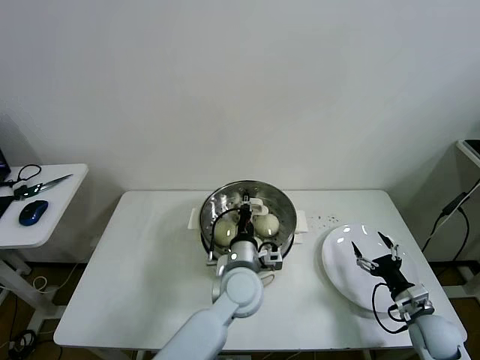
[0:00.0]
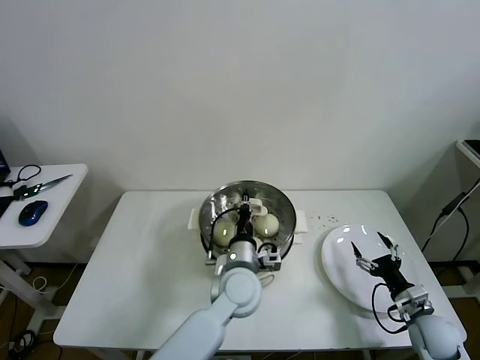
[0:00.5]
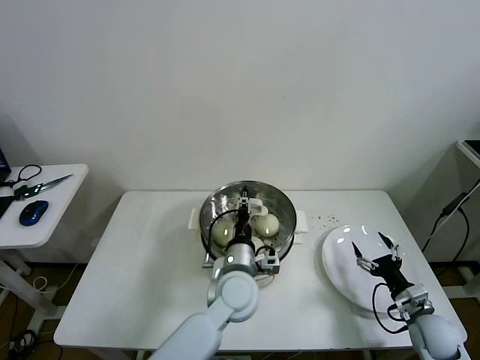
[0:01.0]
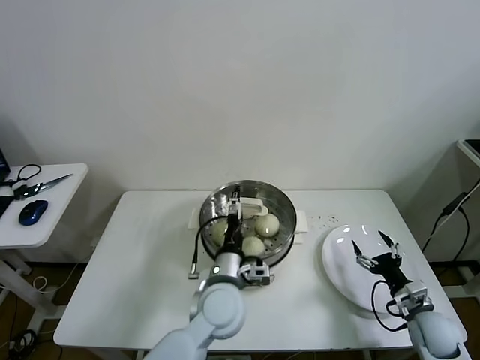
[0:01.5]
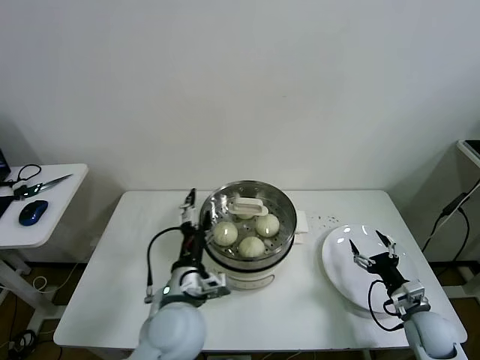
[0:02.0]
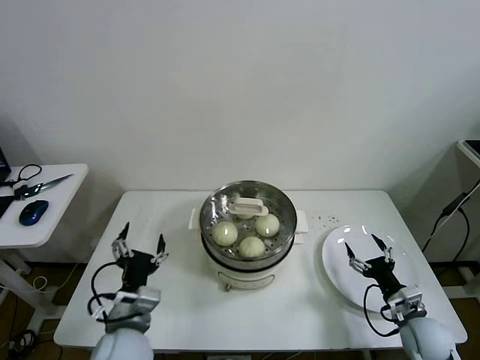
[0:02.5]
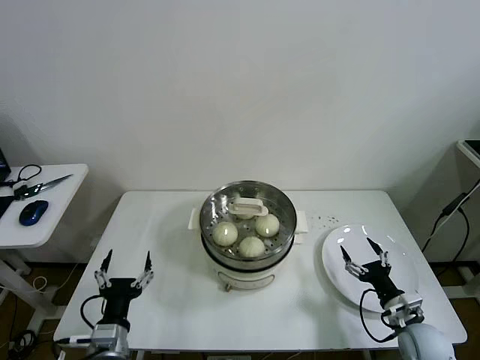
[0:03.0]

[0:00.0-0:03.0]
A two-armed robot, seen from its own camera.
Task of the whole recording: take steamed baozi put them in steamer then cover it.
0:00.0 to 0:01.5: The left gripper opens its fingers.
0:01.5 to 0:03.0: The left gripper is displaced to the left and backward by about 25 cm.

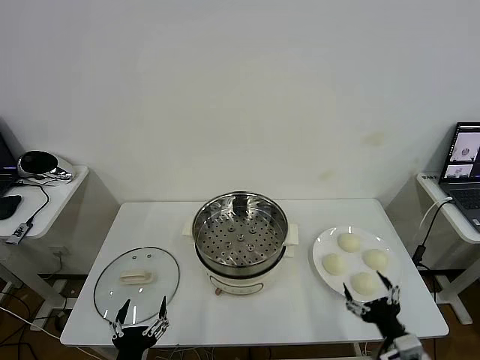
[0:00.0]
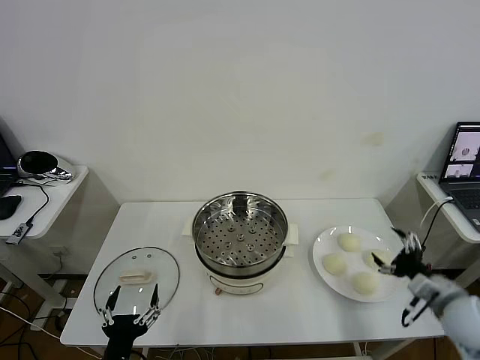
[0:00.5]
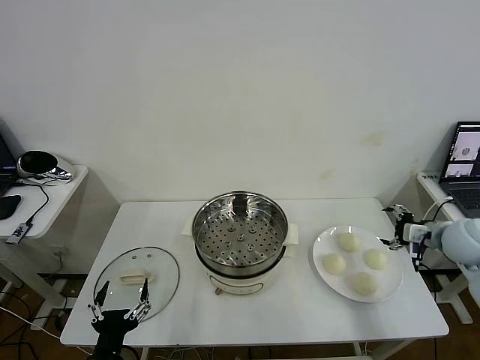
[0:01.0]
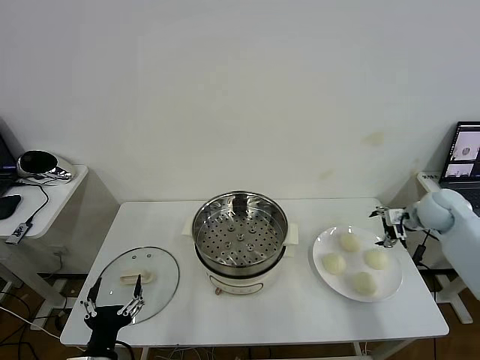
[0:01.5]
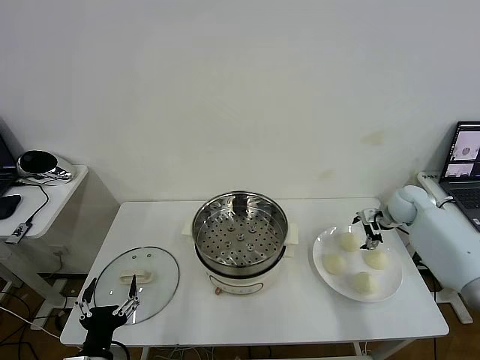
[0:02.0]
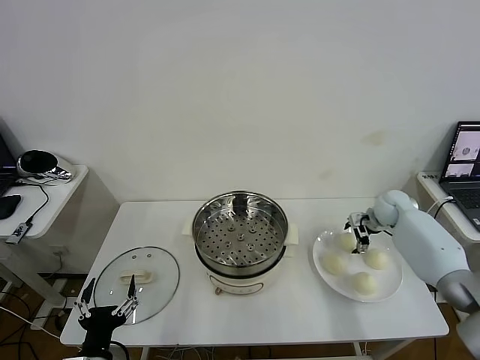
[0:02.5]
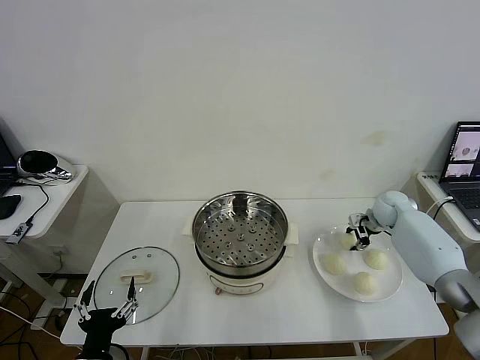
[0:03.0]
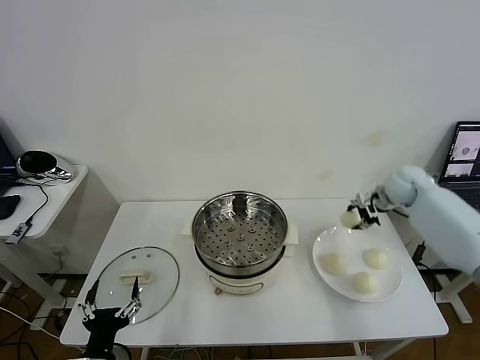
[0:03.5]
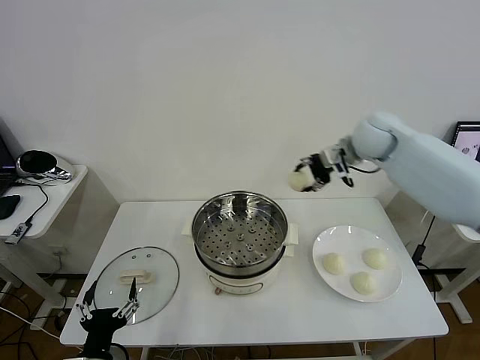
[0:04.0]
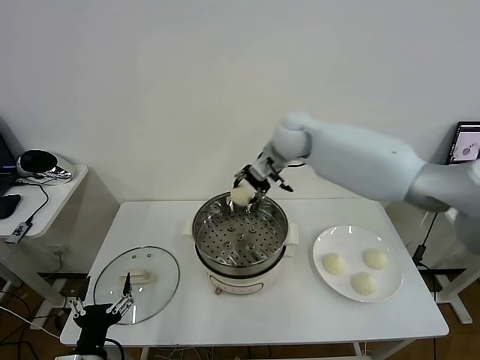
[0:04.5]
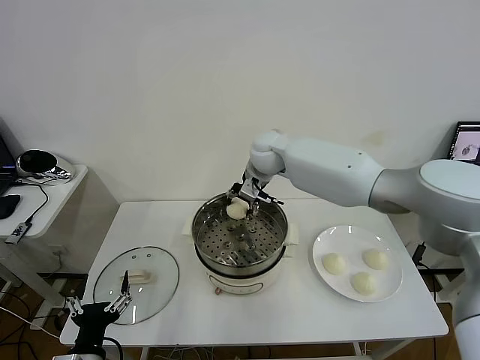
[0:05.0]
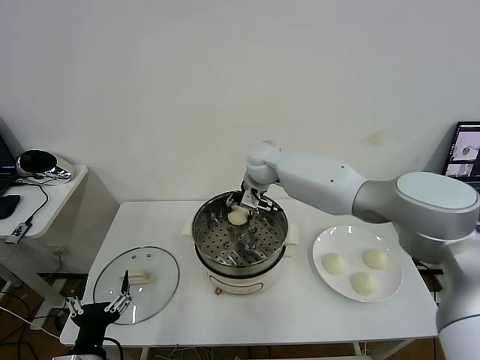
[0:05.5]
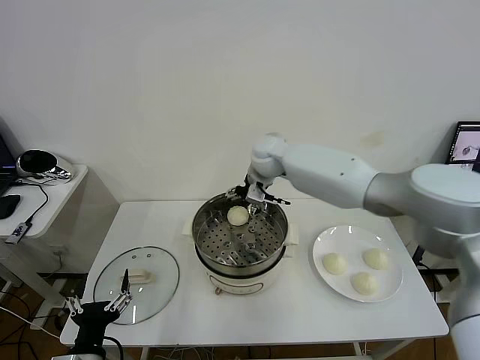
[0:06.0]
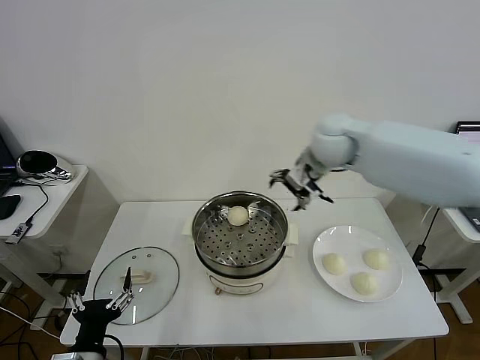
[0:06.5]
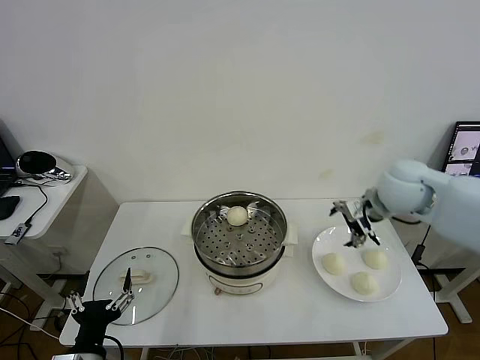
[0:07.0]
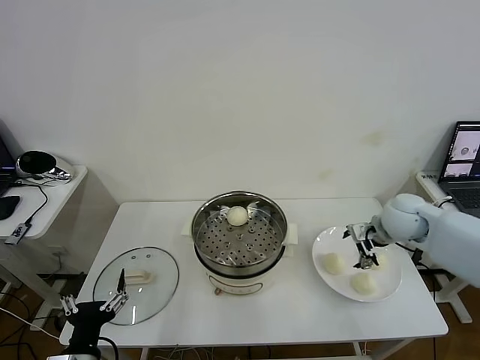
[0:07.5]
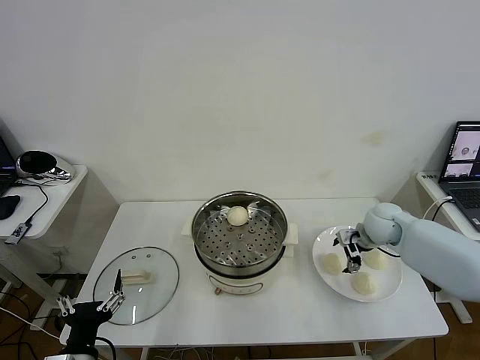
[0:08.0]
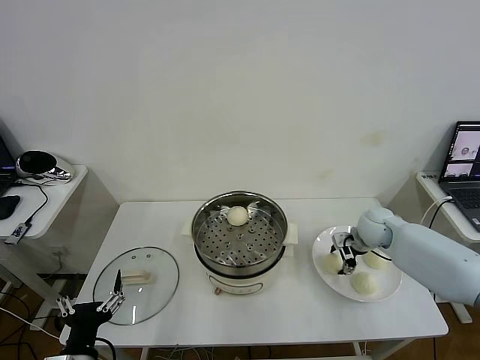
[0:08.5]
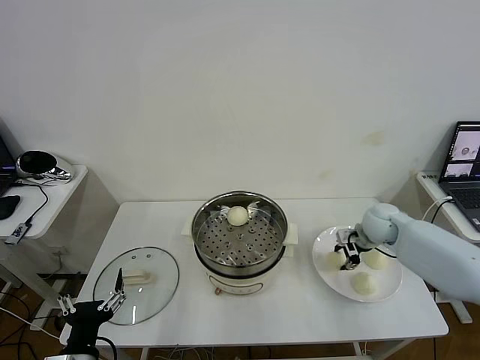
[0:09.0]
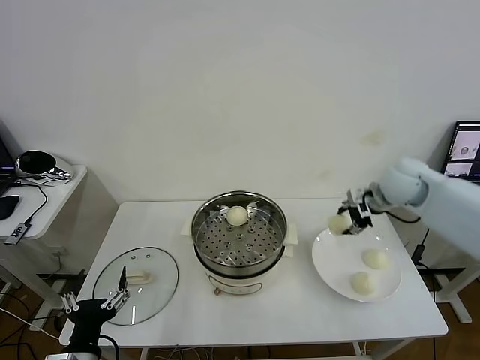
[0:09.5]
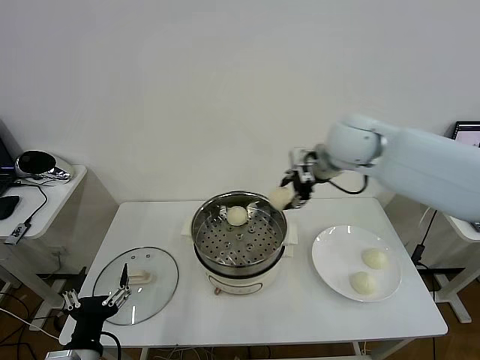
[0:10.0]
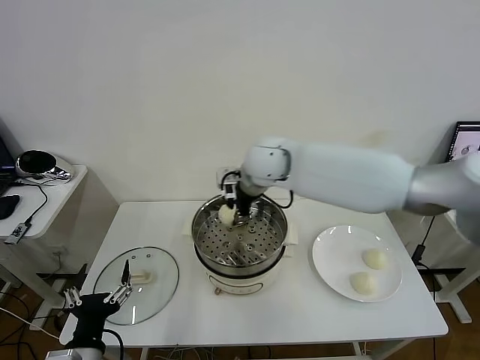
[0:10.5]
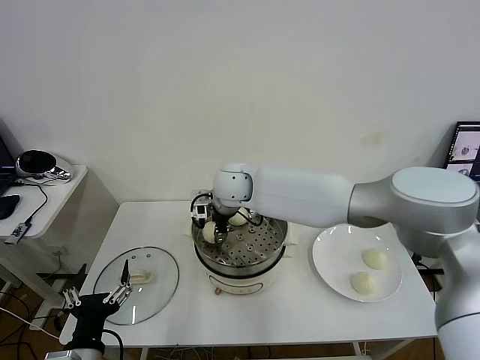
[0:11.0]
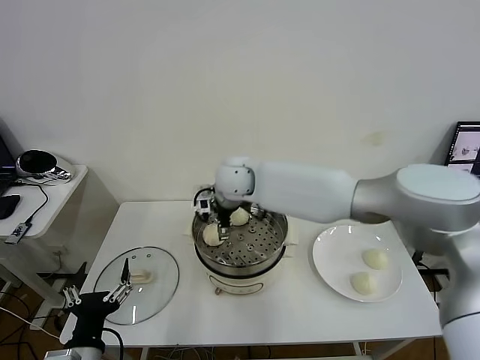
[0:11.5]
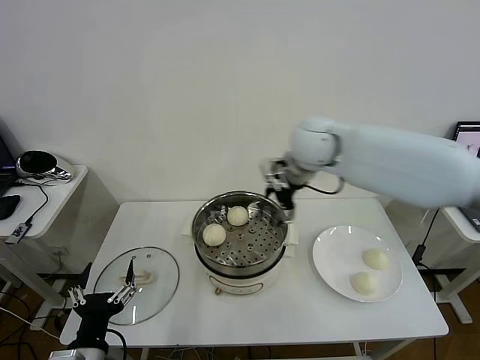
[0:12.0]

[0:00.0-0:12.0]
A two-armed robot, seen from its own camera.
Task of the whole recording: take steamed baozi put them in steamer then cover it.
Step, 0:00.0 to 0:03.0: Grasp the baozi in the plate with right gripper.
Step, 0:03.5 to 0:05.5: Place the baozi on the steamer with right gripper.
Step, 0:06.0 to 0:08.5: Grasp the baozi in the plate with right gripper.
Step, 0:09.0 to 0:11.0: Place the baozi on the steamer with right gripper.
0:02.0 to 0:04.0: The right gripper goes some 25 cm upward and to the left, and closes up.
0:04.0 to 0:06.0: The right gripper heads to the left, covering roughly 20 cm, and opens its fingers.
0:06.0 to 0:08.0: The right gripper shifts approximately 30 cm to the right and downward.
0:08.0 to 0:10.0: The right gripper goes about 30 cm upward and to the left, and closes its fingers.
0:10.0 to 0:12.0: The right gripper goes to the left and returns, about 20 cm each way, and opens.

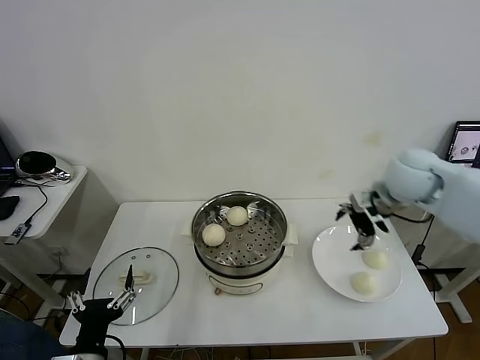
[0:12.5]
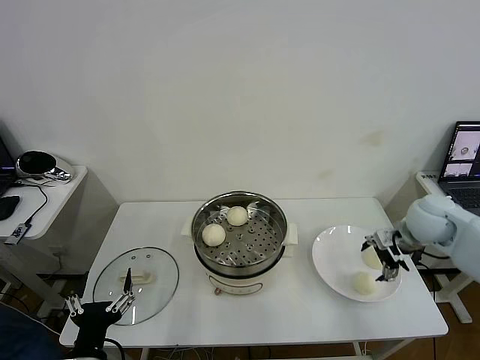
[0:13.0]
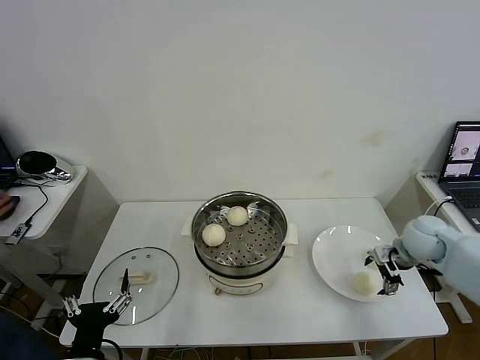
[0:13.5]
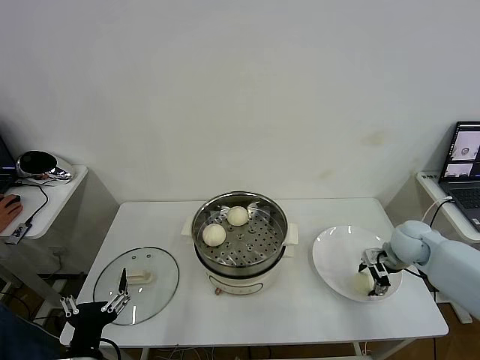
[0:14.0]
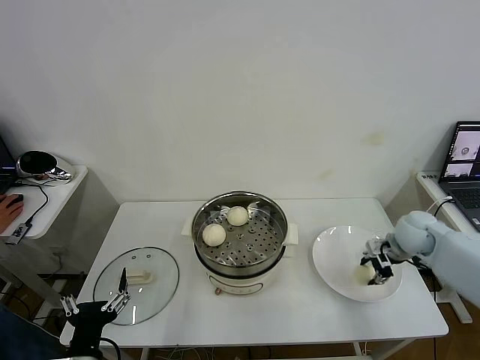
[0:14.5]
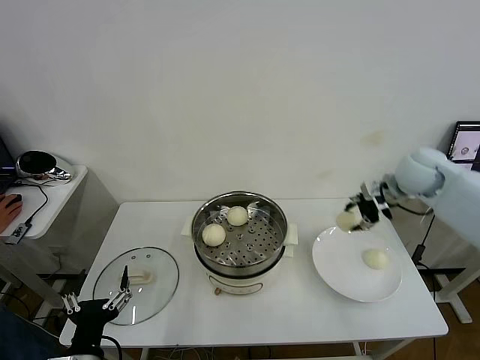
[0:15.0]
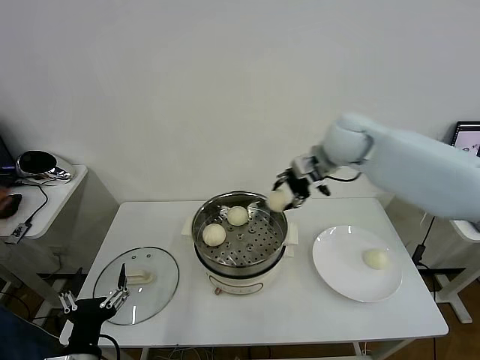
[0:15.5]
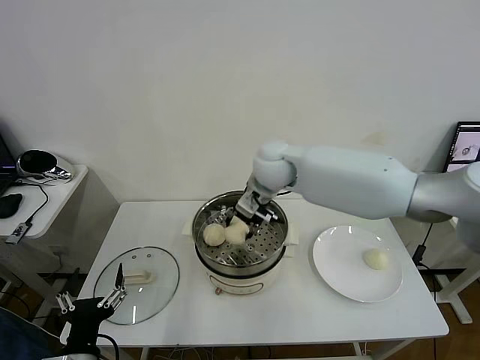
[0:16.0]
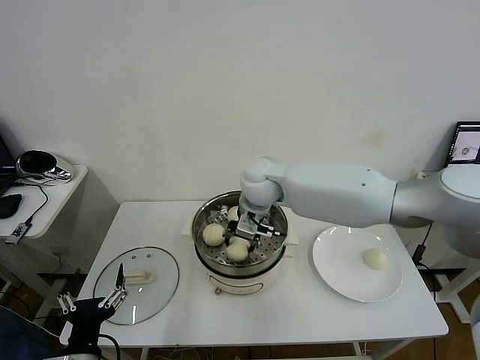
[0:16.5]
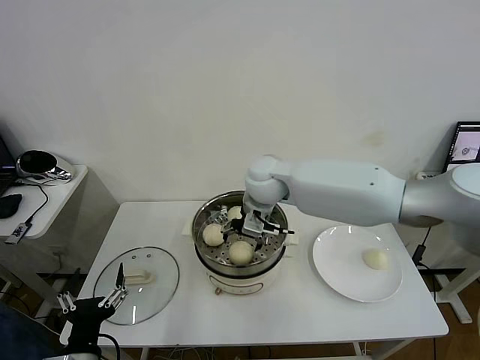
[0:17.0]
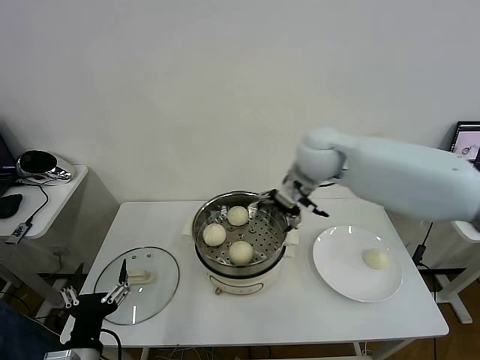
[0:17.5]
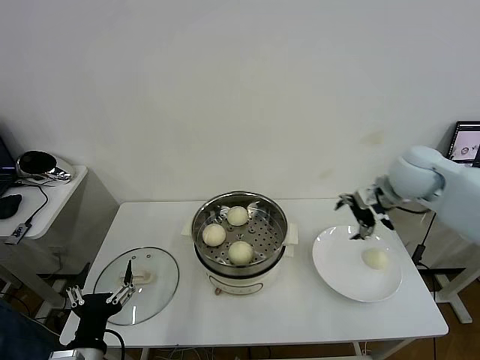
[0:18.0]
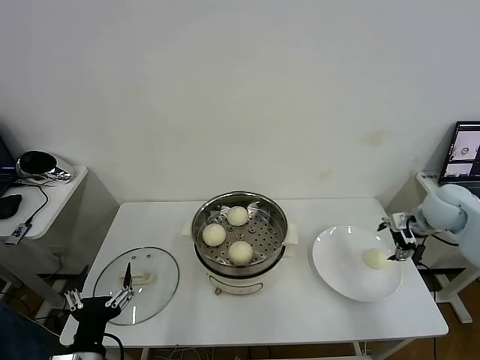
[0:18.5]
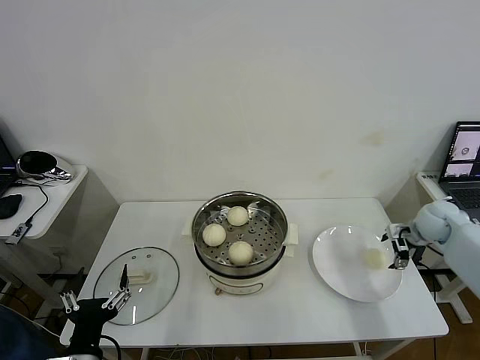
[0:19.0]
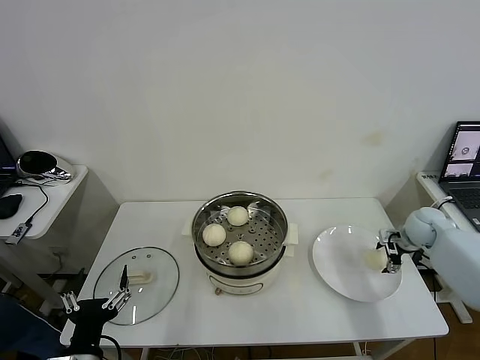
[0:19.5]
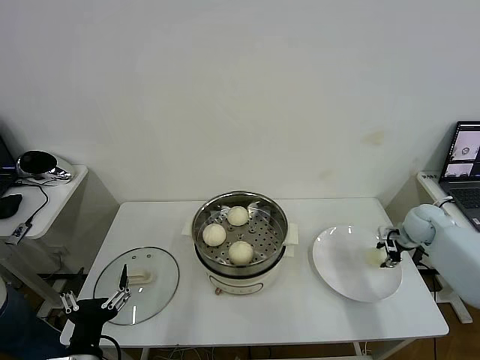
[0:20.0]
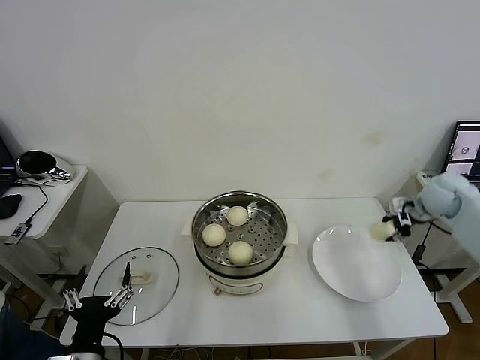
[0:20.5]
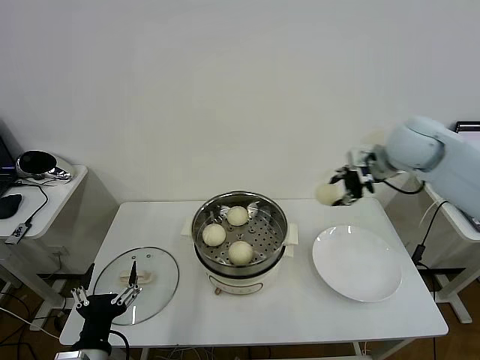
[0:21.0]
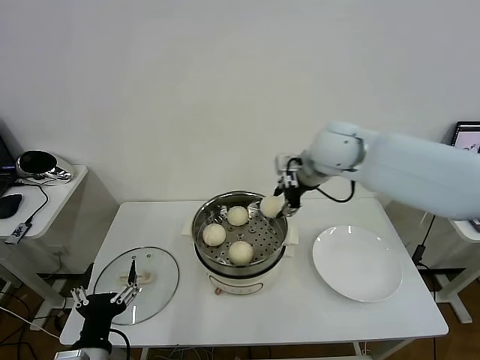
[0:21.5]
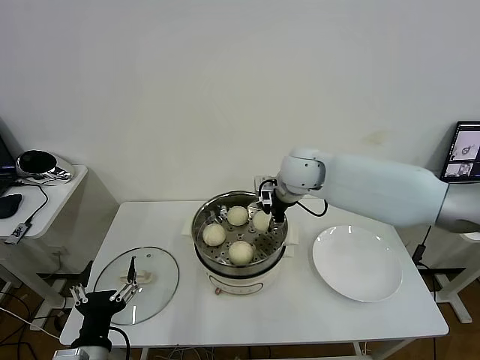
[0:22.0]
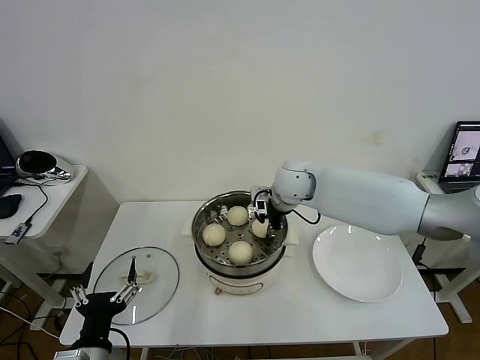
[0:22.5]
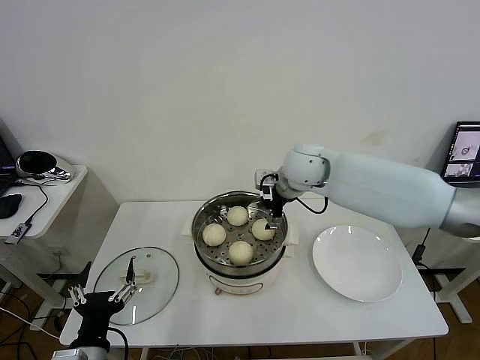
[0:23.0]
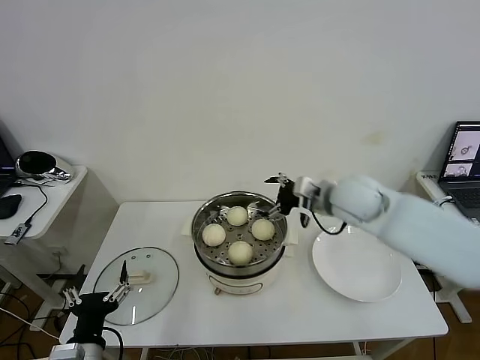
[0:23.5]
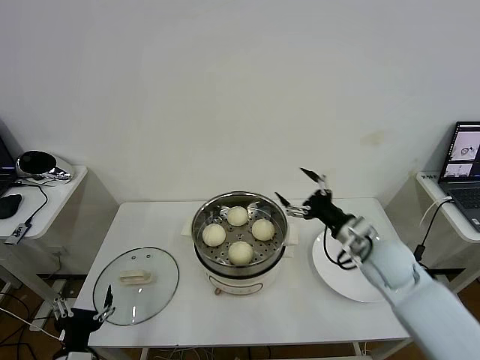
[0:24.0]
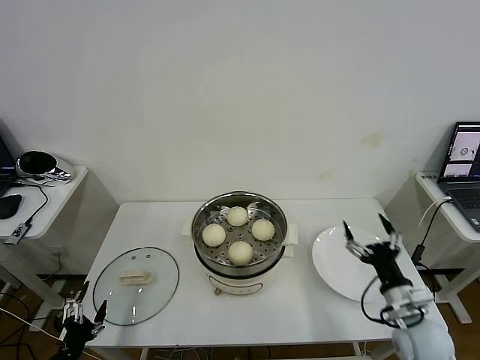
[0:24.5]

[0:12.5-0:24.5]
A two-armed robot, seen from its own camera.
Task of the whole recording: take steamed baozi put them in steamer then cover it.
Step, 0:12.5 to 0:14.0: Grasp the baozi in the plate with right gripper.
Step, 0:14.5 to 0:17.0: Place the baozi on the steamer with right gripper.
Step, 0:17.5 to 0:20.0: Grasp the baozi in the plate with right gripper.
Step, 0:20.5 to 0:22.5: Place the baozi on the steamer with right gripper.
0:12.5 to 0:14.5: The right gripper shifts approximately 15 cm downward and to the right, and closes its fingers.
0:14.5 to 0:16.5: The right gripper goes roughly 35 cm to the left.
0:16.5 to 0:18.5: The right gripper heads to the right, covering some 40 cm, and opens.
0:18.5 to 0:20.5: The right gripper reaches about 10 cm downward, then returns, and closes up.
0:20.5 to 0:22.5: The right gripper moves to the left, some 35 cm.
0:22.5 to 0:24.5: The left gripper shifts about 15 cm to the left and downward. The right gripper goes about 40 cm backward, to the right and downward, and opens its fingers.
